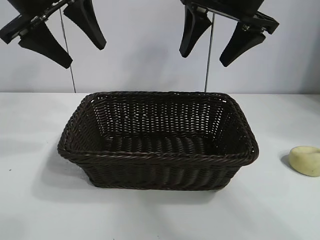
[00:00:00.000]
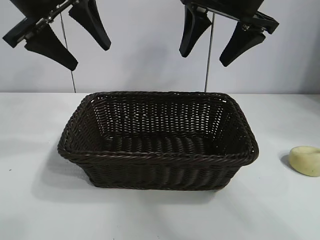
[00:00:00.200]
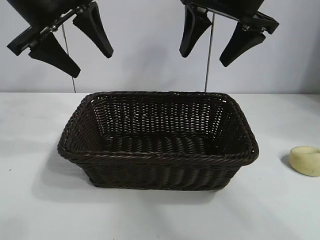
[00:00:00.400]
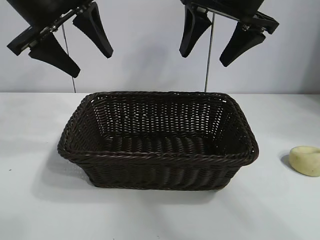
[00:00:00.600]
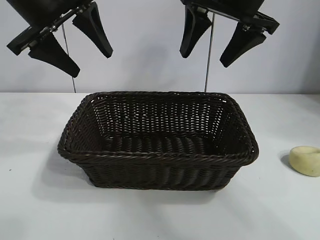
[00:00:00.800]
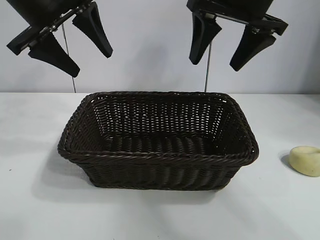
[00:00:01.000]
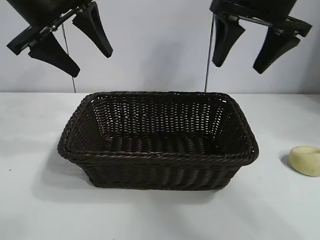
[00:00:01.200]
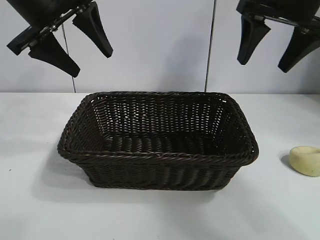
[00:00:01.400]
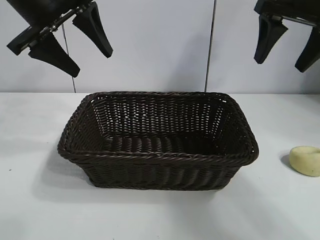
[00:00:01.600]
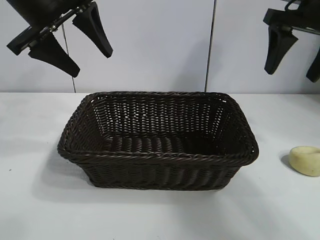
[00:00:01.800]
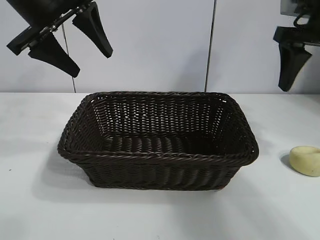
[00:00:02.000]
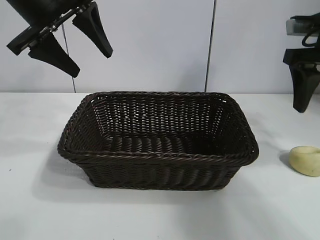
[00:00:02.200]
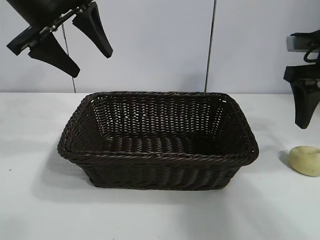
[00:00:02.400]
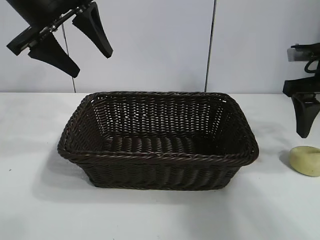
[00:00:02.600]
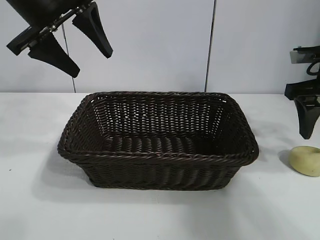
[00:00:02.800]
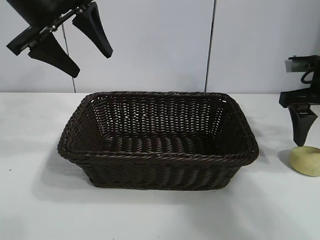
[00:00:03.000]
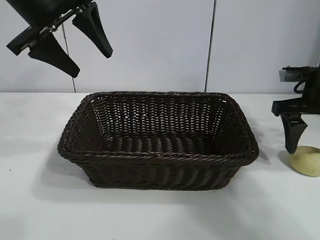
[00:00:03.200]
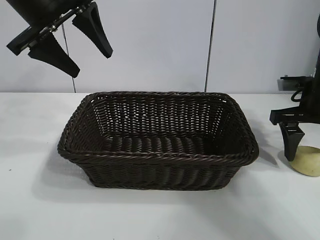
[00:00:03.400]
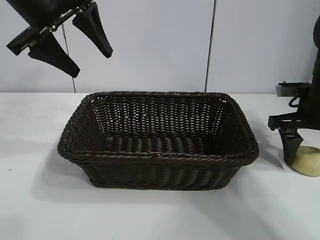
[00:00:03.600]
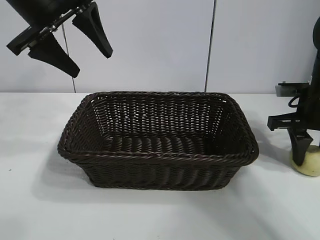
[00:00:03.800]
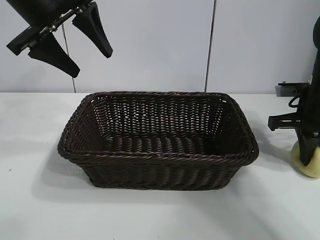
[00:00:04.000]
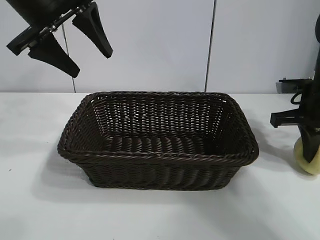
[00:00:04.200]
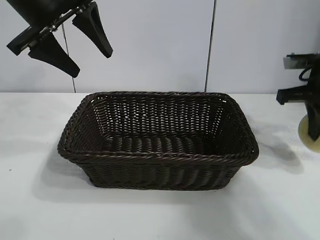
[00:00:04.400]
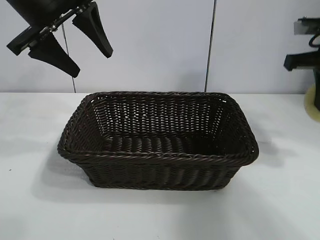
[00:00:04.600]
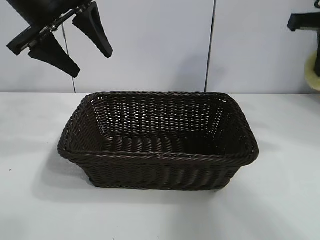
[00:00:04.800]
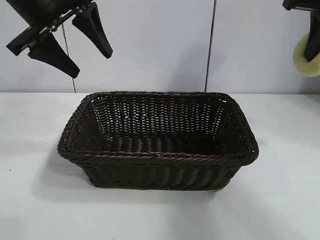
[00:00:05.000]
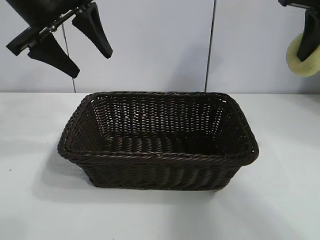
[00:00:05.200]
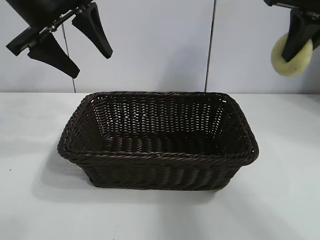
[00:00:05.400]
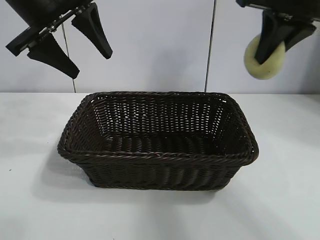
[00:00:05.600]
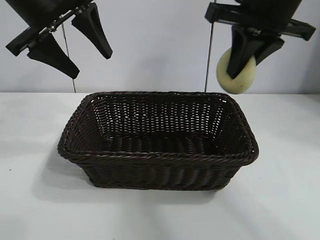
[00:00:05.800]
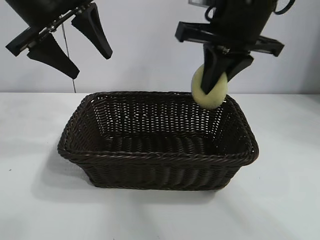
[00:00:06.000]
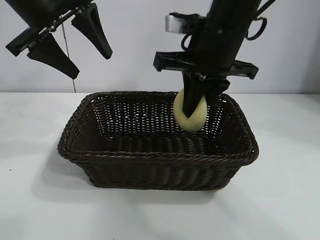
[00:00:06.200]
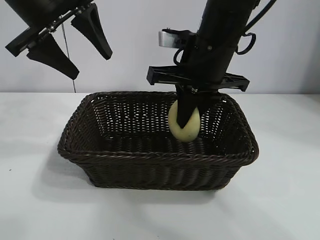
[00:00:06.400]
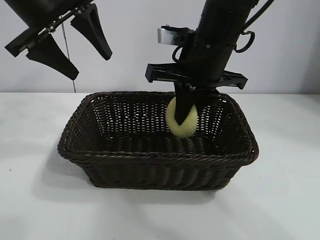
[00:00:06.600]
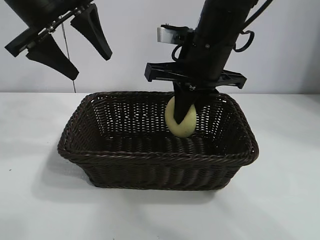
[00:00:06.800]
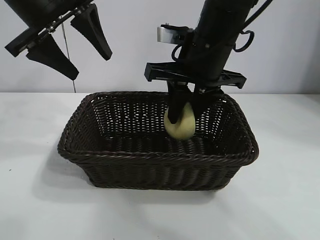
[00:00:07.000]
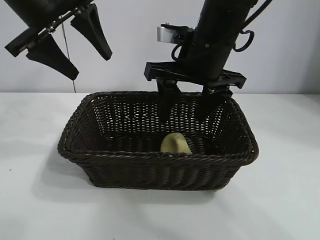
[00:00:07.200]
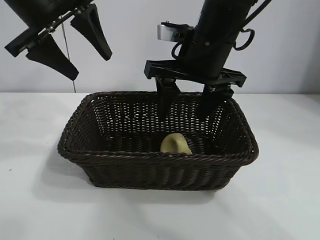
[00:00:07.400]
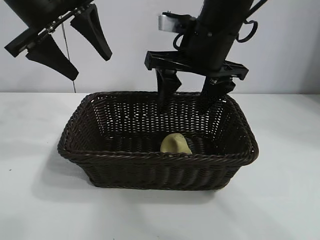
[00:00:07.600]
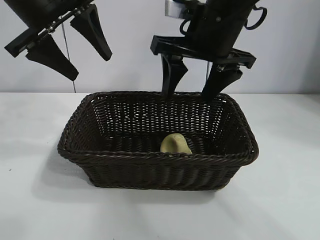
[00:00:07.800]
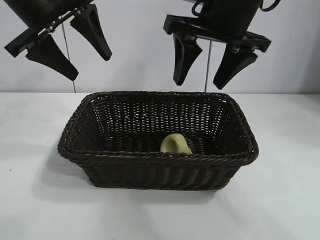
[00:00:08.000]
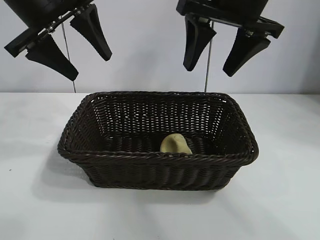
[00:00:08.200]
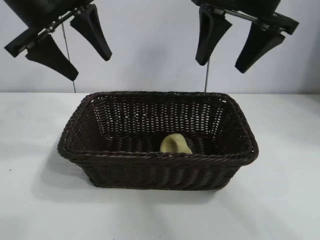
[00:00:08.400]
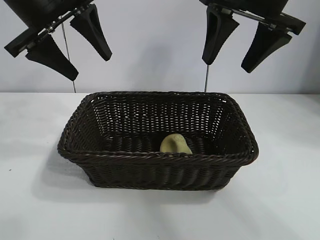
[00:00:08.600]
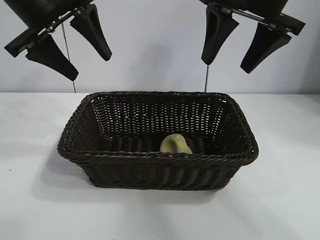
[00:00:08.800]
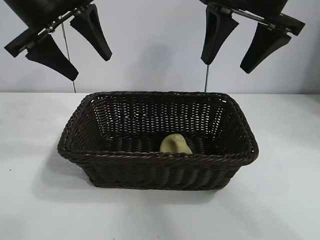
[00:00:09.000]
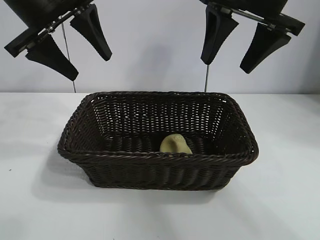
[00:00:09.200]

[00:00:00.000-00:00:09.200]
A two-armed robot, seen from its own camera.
Task of the whole recording: pick up the egg yolk pastry and put it into the basket.
Step, 00:00:00.000 to 00:00:04.000: Grasp egg yolk pastry with right gripper.
Step, 00:00:04.200 to 00:00:07.200: Place the egg yolk pastry in the basket with right gripper.

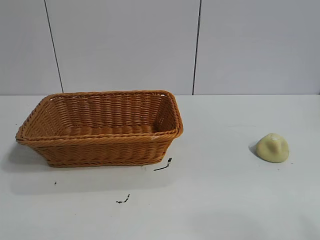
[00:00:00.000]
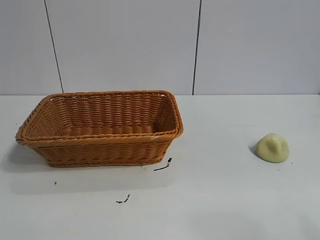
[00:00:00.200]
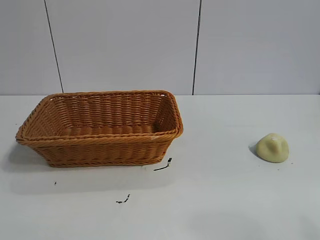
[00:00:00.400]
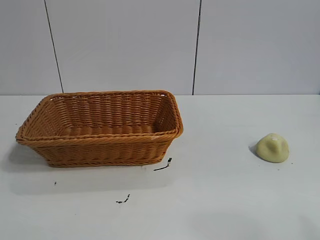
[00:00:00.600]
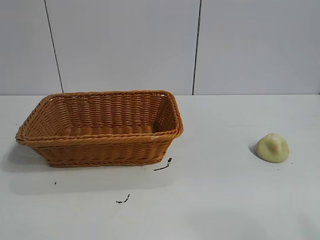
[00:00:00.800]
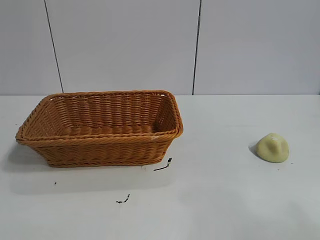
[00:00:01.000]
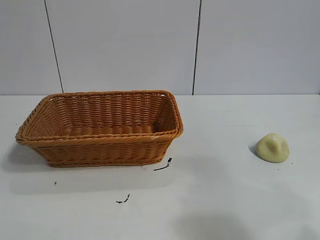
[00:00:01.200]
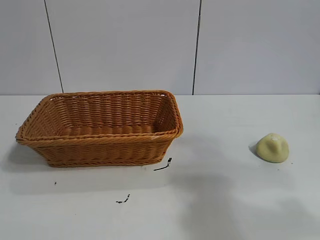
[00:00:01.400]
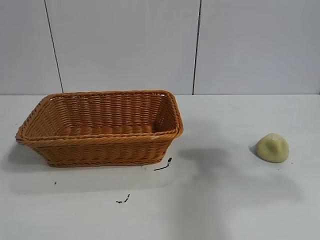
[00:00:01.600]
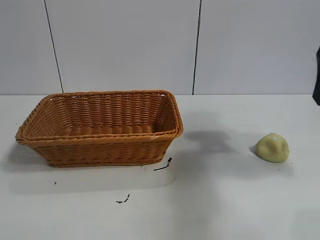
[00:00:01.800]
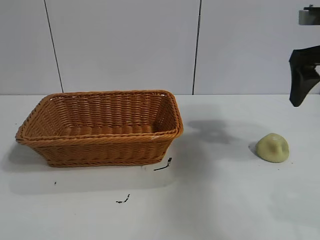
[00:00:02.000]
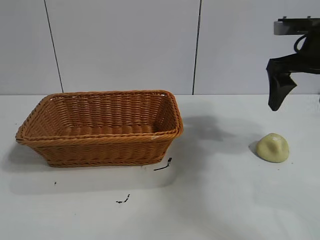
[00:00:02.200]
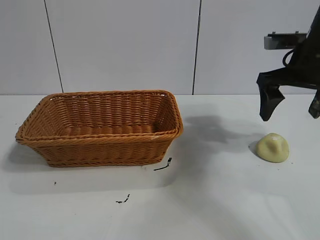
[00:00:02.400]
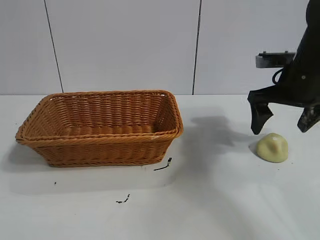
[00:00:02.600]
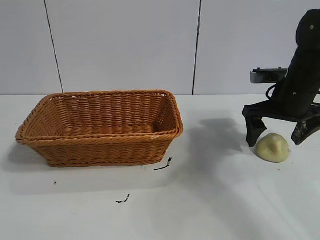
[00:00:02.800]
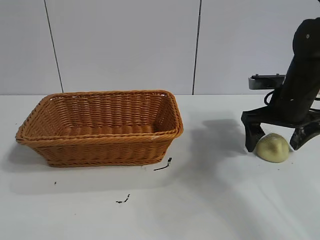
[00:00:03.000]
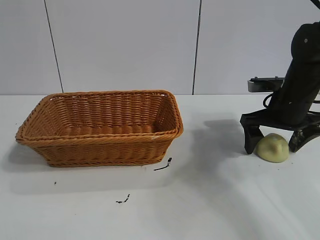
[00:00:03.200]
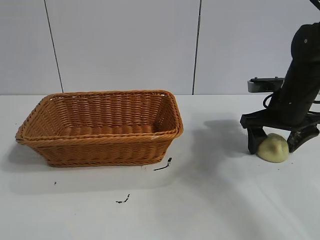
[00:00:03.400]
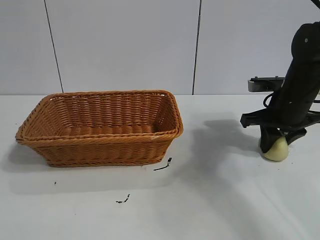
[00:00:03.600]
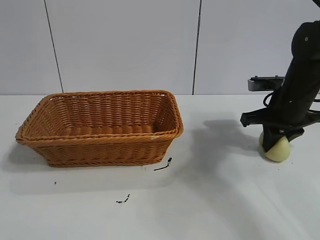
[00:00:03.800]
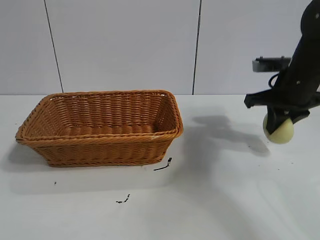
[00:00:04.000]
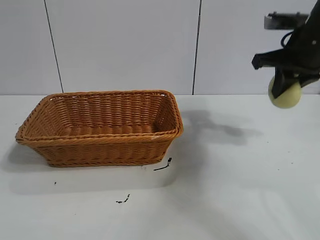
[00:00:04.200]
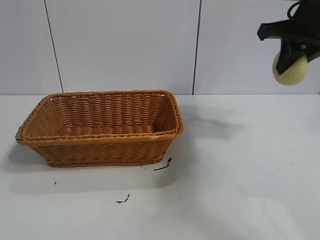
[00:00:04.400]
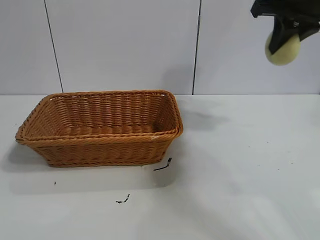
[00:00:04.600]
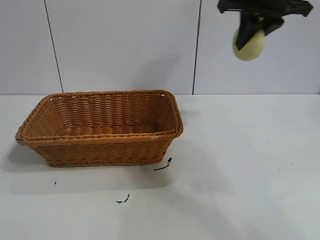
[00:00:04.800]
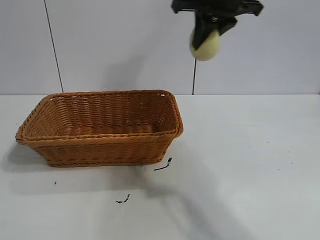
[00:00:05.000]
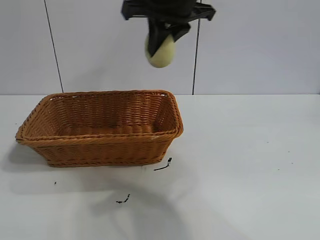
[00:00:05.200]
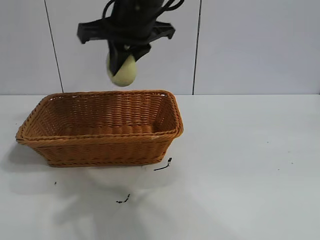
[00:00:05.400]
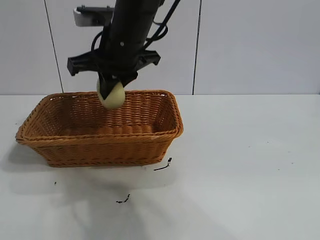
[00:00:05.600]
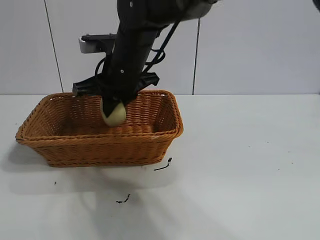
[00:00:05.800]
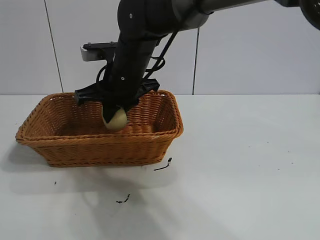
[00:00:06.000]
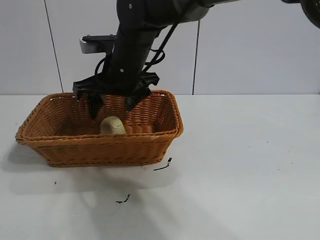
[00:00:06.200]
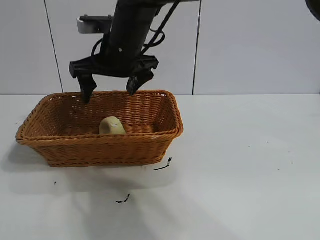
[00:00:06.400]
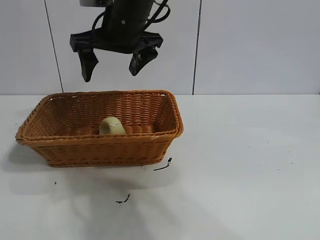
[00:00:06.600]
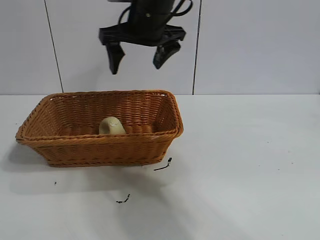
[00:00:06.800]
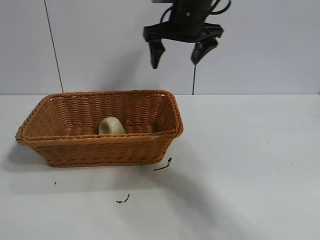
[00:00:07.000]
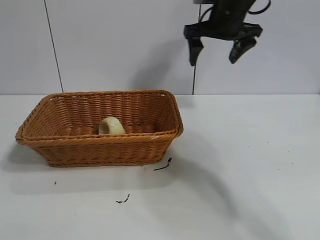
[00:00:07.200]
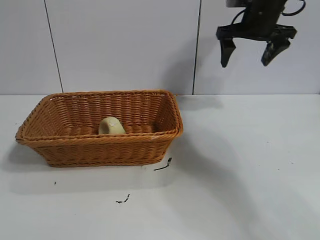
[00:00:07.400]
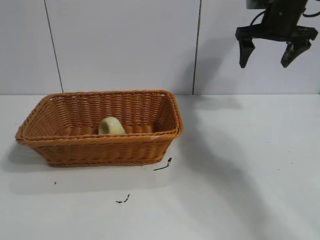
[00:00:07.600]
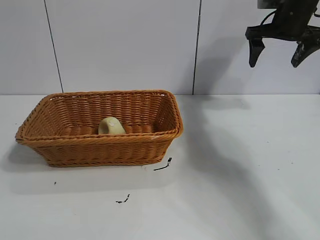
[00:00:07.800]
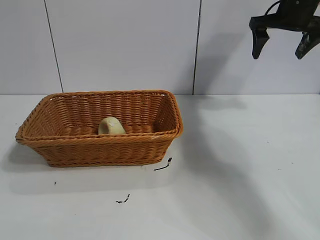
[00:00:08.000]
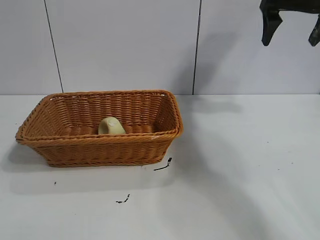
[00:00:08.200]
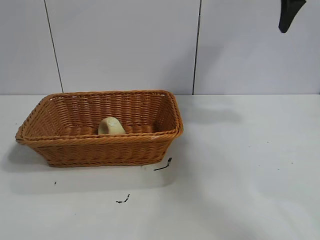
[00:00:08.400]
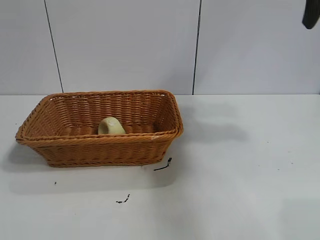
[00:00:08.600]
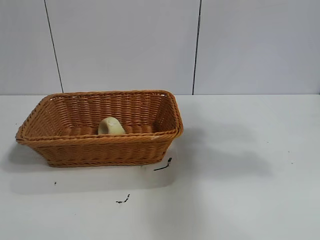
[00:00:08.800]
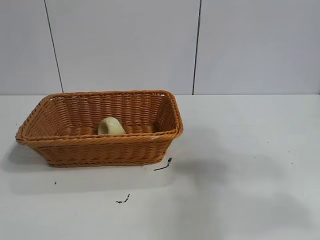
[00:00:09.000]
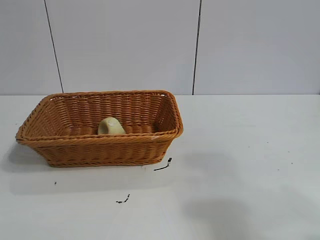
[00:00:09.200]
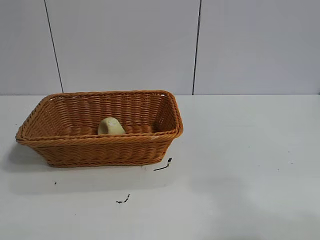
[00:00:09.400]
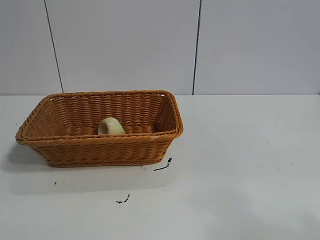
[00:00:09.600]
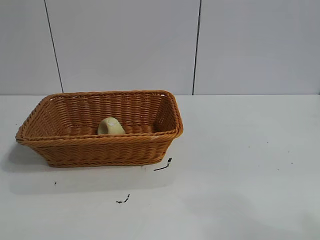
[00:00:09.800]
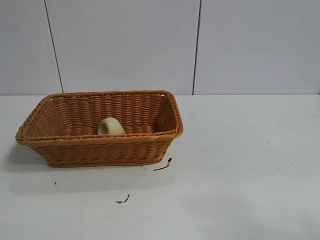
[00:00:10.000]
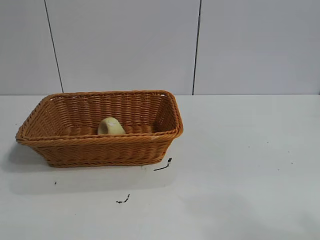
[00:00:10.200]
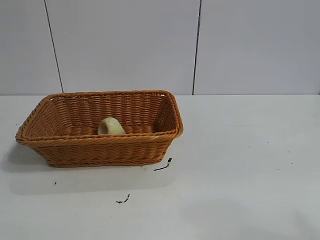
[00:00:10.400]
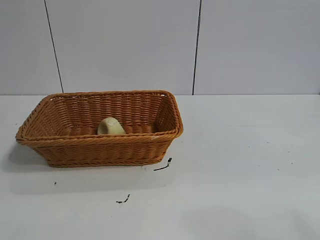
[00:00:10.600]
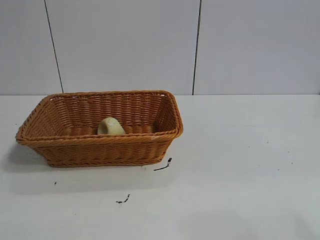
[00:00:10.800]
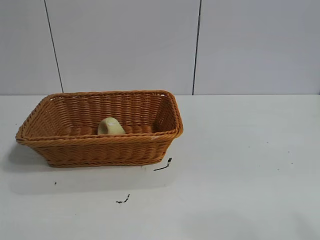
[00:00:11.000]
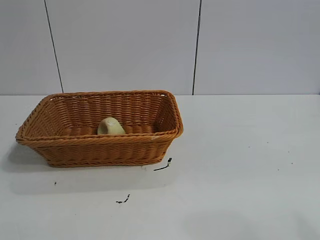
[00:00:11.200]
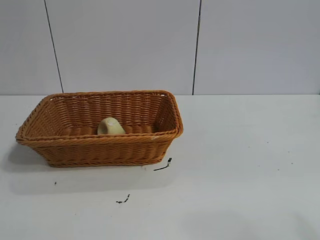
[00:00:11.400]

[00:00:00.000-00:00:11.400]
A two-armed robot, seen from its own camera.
Task of the whole recording: pick up the egg yolk pastry and put it into the basket.
Step, 00:00:00.800 to 00:00:03.600: Grasp egg yolk pastry with right gripper.
Step, 00:00:03.800 to 00:00:06.200: Place the egg yolk pastry in the basket with right gripper.
